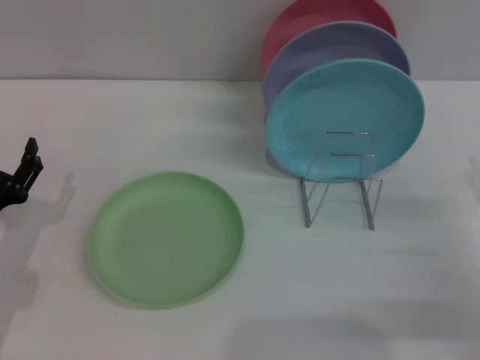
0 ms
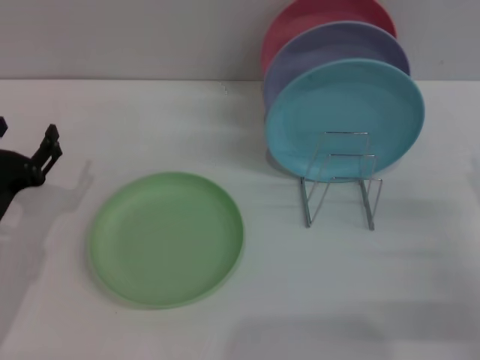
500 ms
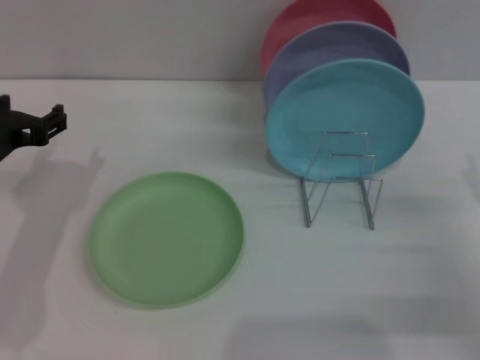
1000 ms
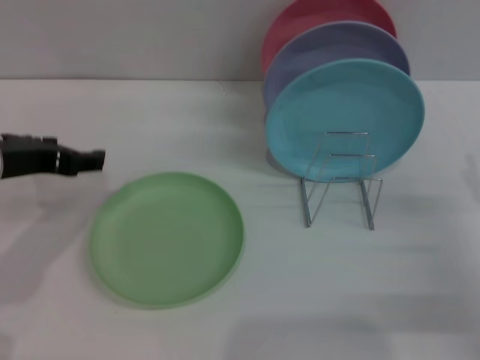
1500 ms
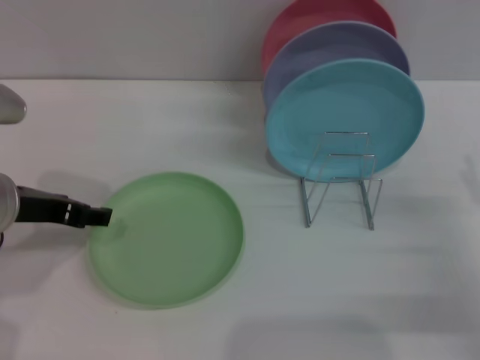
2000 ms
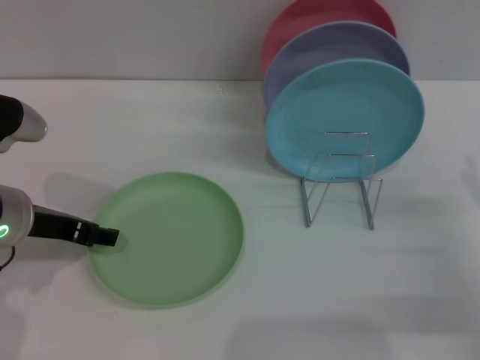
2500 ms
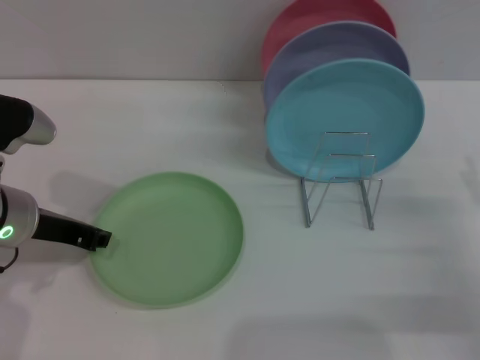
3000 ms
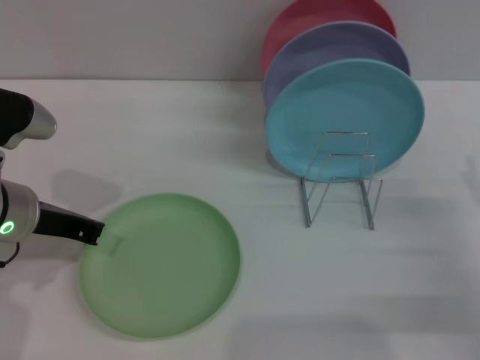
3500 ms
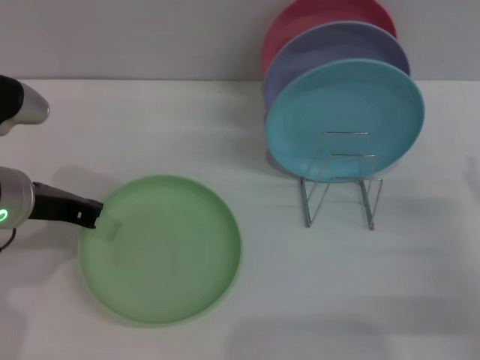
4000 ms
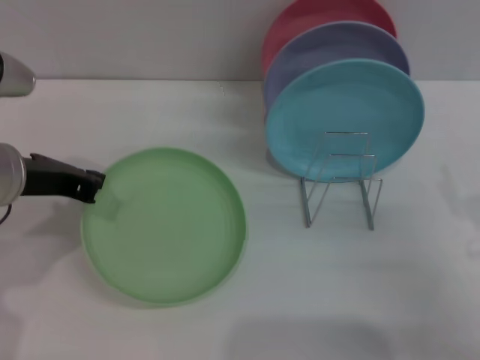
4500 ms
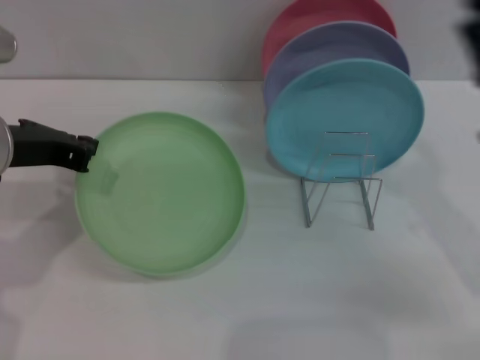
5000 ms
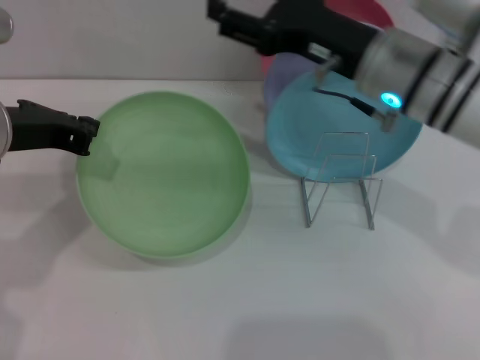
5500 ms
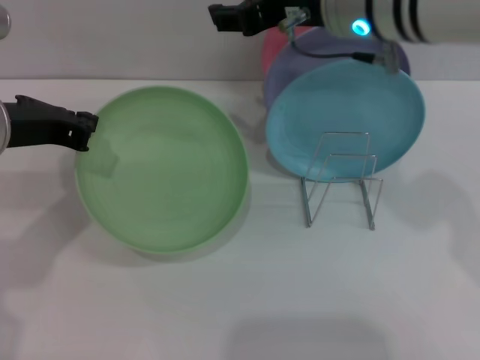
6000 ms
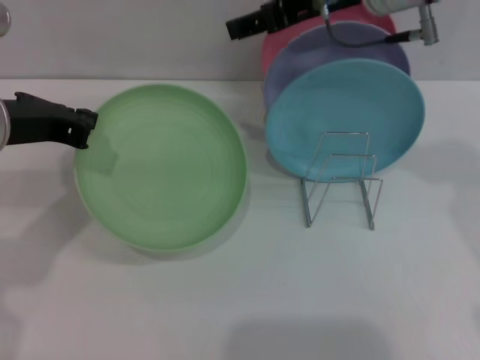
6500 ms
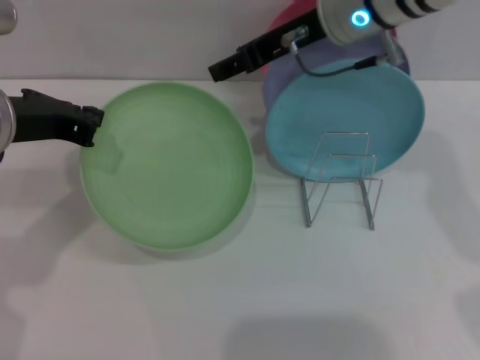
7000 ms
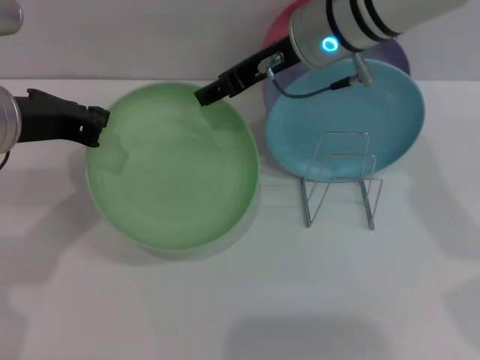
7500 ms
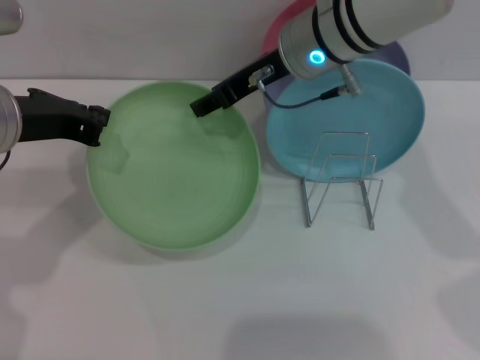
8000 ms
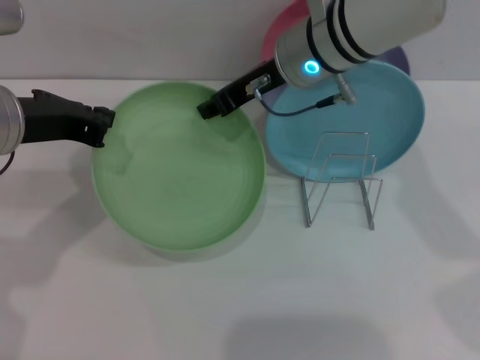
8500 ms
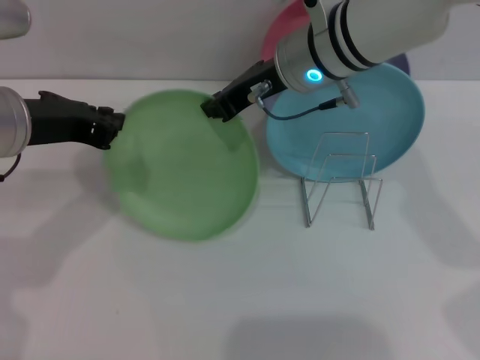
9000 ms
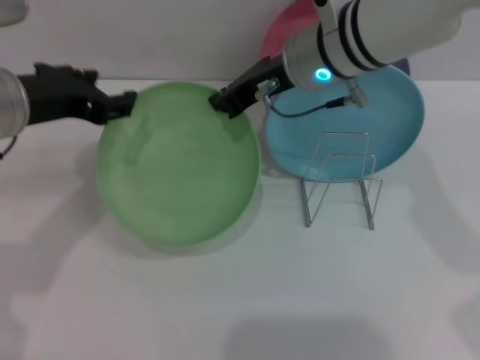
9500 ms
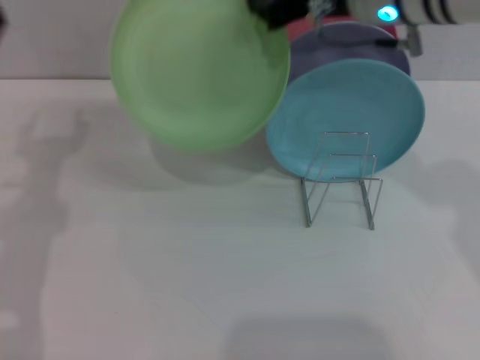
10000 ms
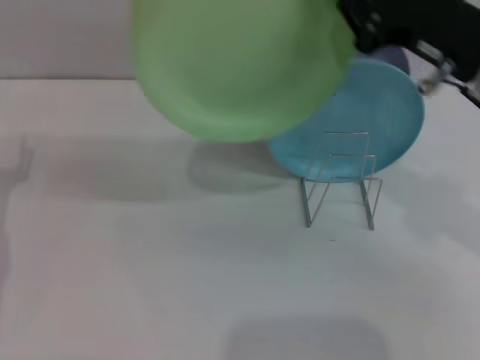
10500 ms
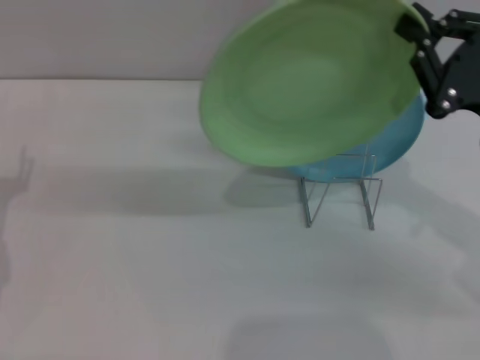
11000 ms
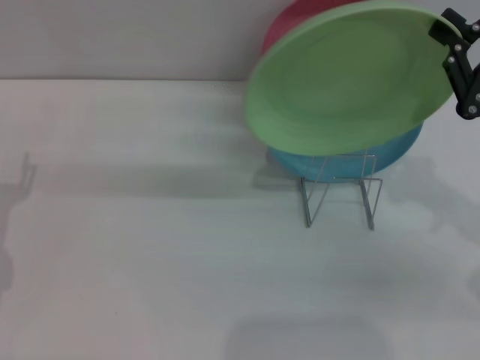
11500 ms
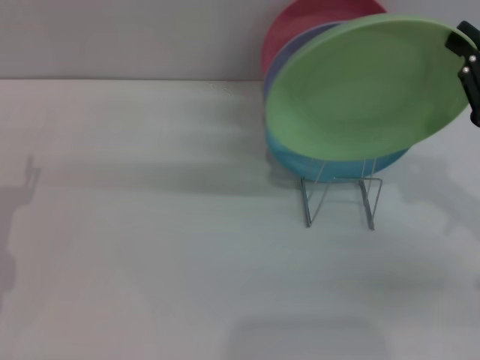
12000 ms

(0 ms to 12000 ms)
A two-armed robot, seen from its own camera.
Task of the whole recording: Grip the plate with one hand, pass it to the other, then set it on the shelf.
Step, 0 ms - 6000 ms: Pick up the plate with the left gripper.
Step, 6500 ms - 10000 ms: Pass the plate from the left gripper to the right gripper.
0 ms - 2000 ms: The left gripper is displaced upward, forward and to the right by approximately 15 cm.
2000 ms - 4000 ms: The left gripper closes.
4000 ms - 6000 ms: The right gripper heads upward, to the left and forward, covering roughly 35 cm; the left gripper heads upward, covering approximately 5 cm.
6000 ms - 8000 ms: The right gripper shifts by some 5 cm.
8000 ms - 10000 ms: The right gripper travels to the right by about 5 cm, and closes up; the left gripper heads downward, covering about 5 cm, and opens up.
10000 ms - 12000 ms: The right gripper heads to the right, backward and downward, covering about 25 cm; the left gripper moves downward, roughly 10 cm.

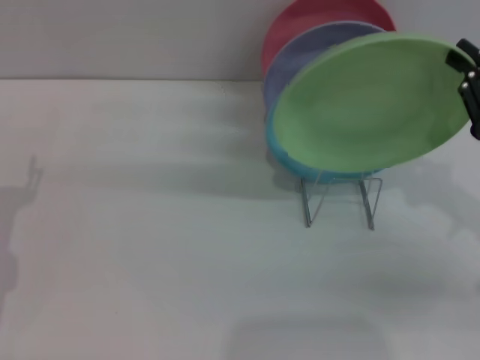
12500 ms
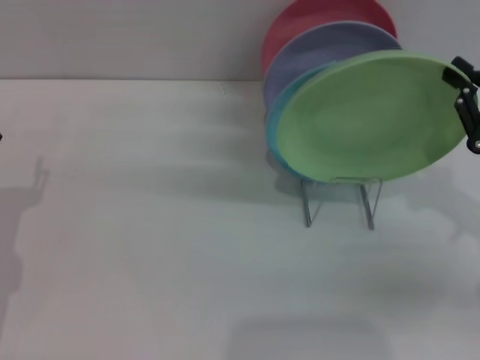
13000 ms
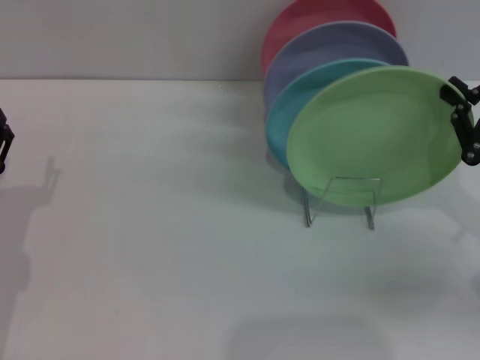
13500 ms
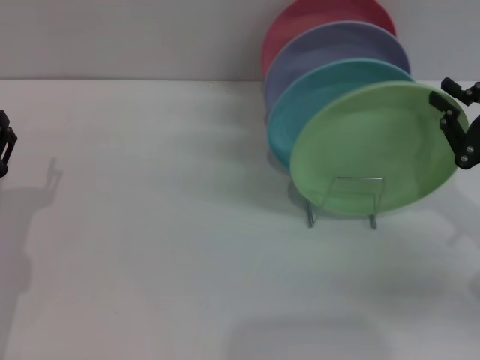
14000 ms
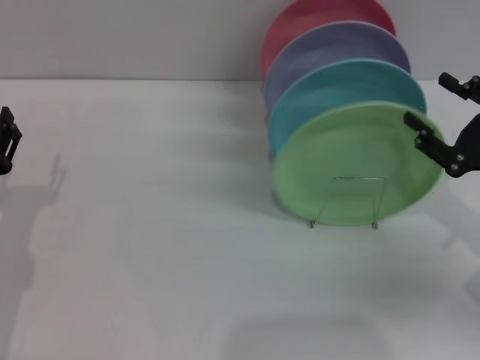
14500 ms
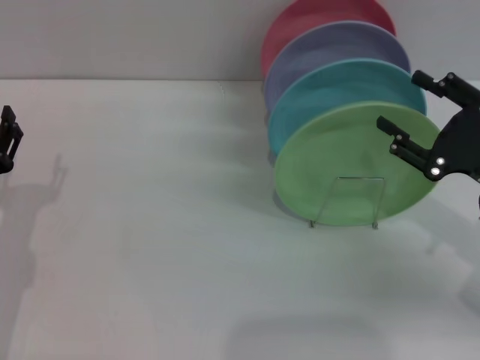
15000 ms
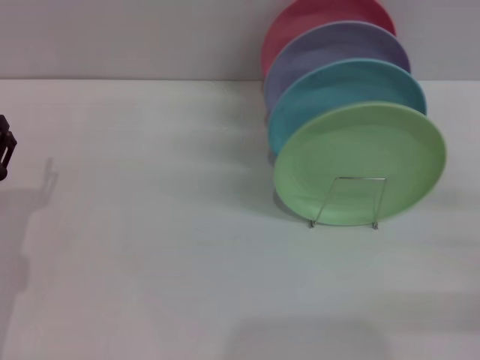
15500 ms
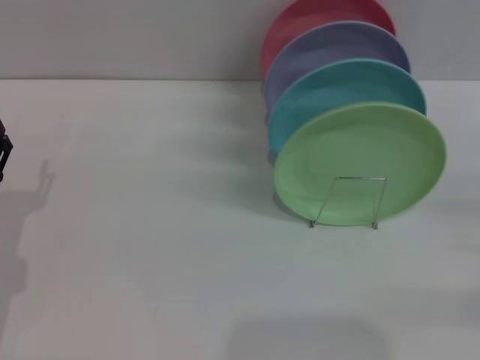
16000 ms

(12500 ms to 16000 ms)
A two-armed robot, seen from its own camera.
Task of the whole recording: Grip the plate with one hand, pass it to the other, then set it on the shelf.
12500 ms - 14500 ms: The right gripper opens up.
14500 ms - 16000 ms: The right gripper heads to the right, covering roughly 10 cm, and opens its fingers.
